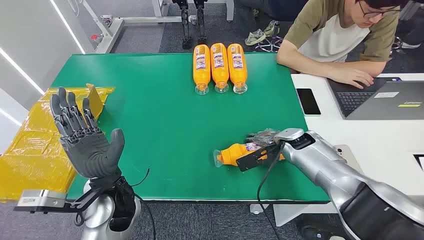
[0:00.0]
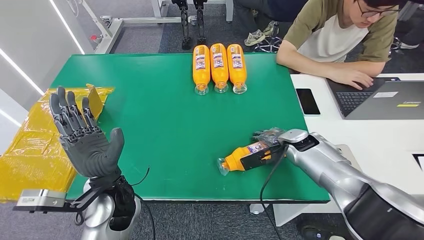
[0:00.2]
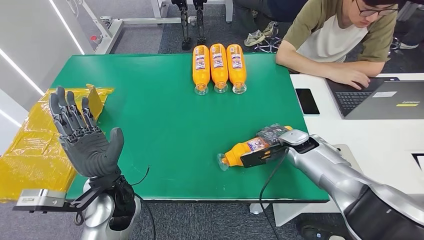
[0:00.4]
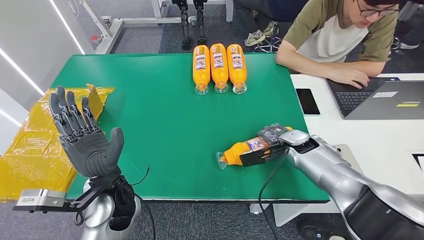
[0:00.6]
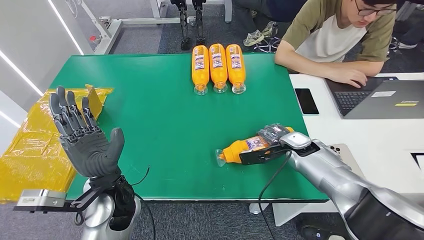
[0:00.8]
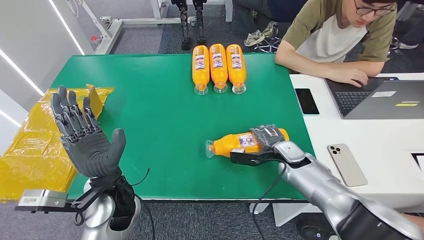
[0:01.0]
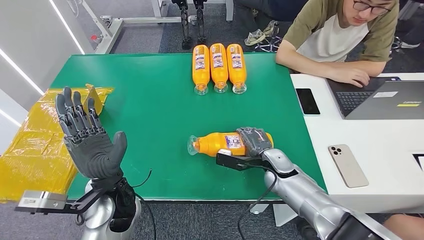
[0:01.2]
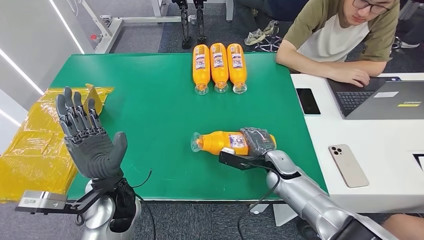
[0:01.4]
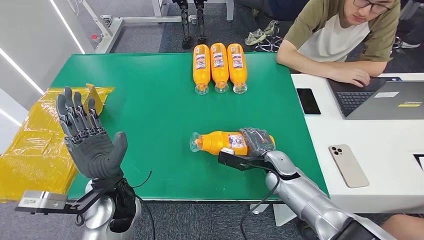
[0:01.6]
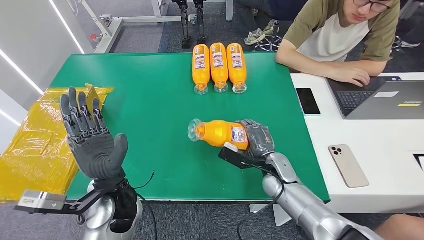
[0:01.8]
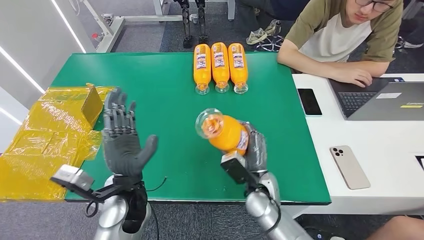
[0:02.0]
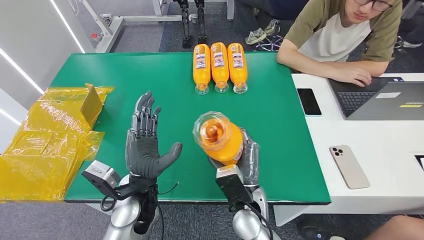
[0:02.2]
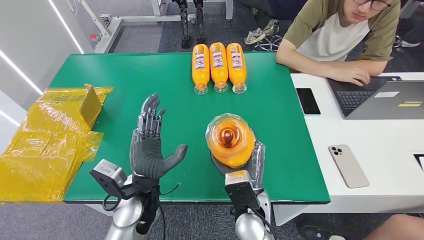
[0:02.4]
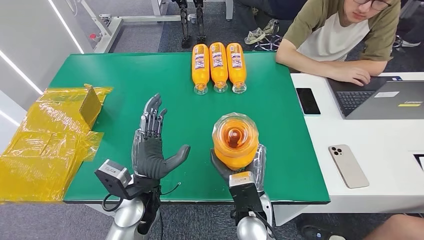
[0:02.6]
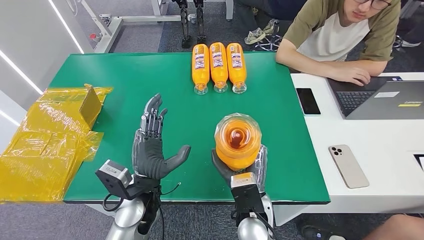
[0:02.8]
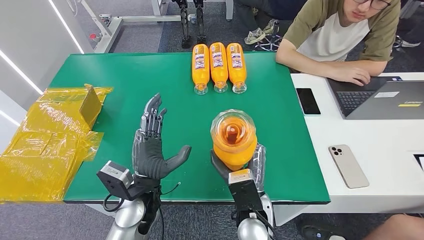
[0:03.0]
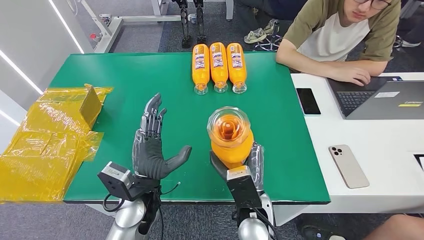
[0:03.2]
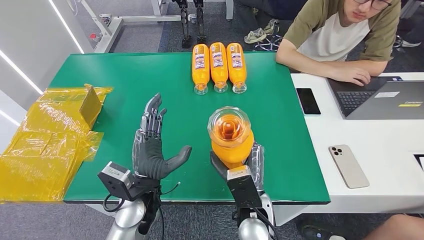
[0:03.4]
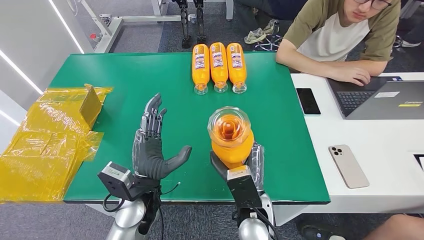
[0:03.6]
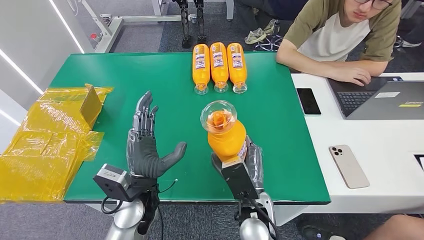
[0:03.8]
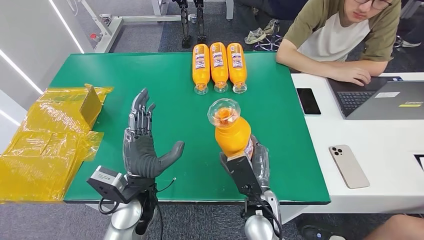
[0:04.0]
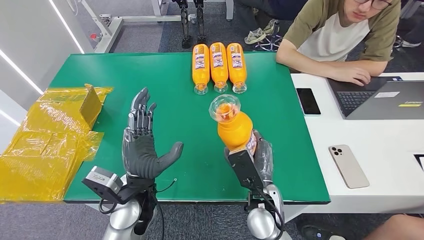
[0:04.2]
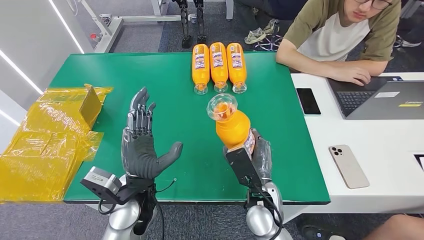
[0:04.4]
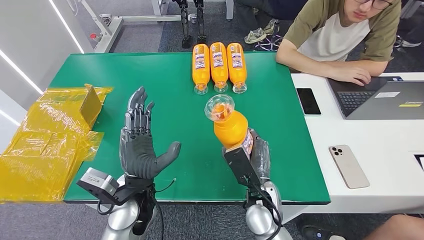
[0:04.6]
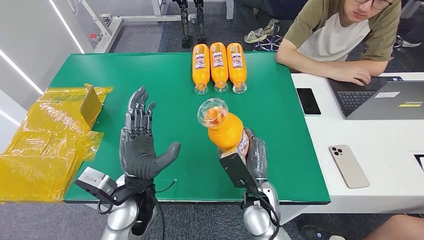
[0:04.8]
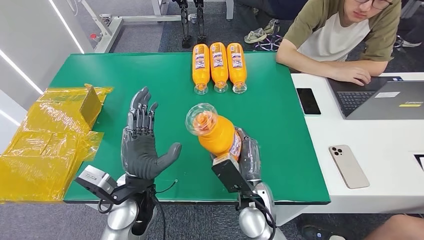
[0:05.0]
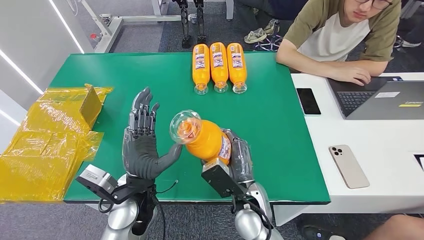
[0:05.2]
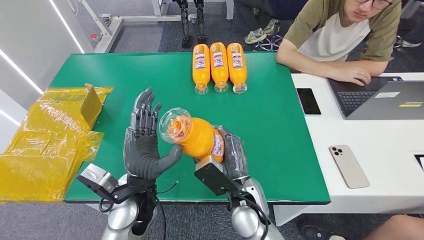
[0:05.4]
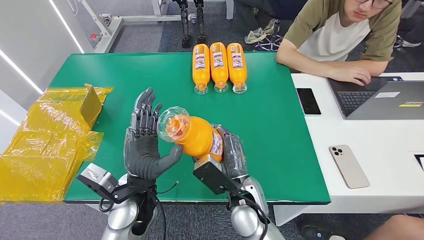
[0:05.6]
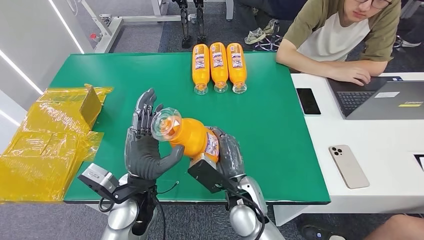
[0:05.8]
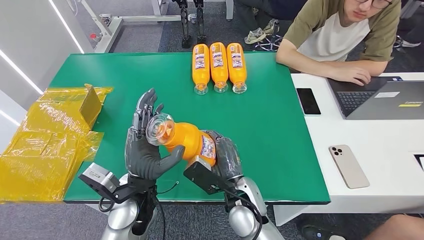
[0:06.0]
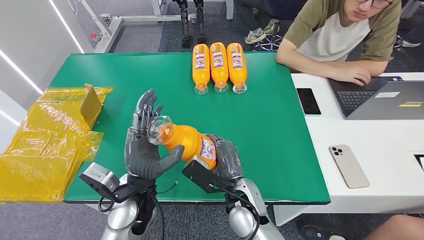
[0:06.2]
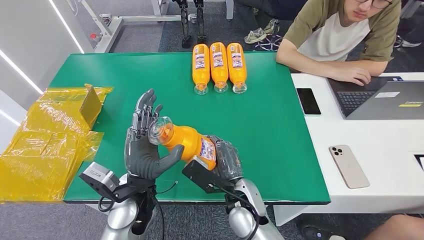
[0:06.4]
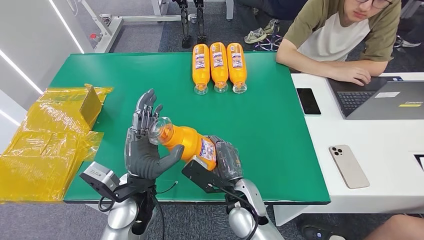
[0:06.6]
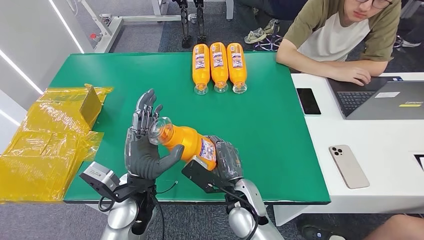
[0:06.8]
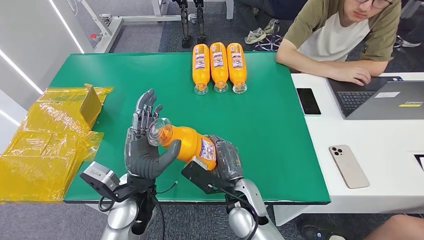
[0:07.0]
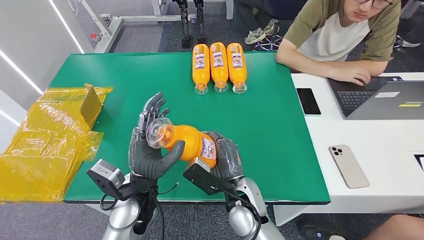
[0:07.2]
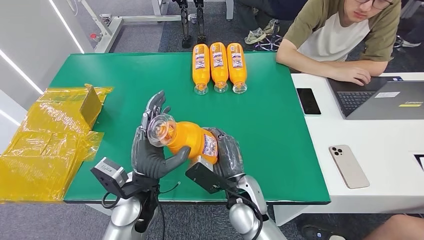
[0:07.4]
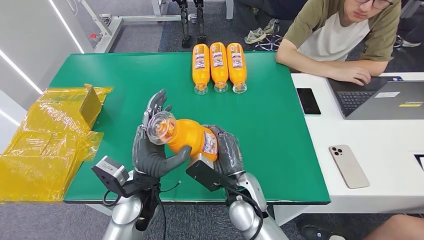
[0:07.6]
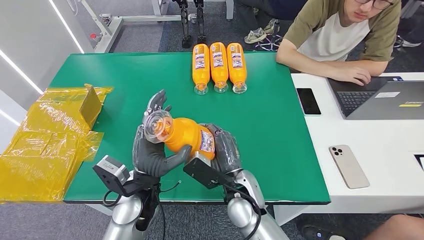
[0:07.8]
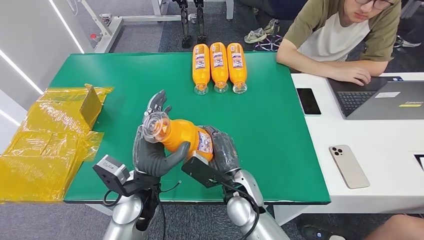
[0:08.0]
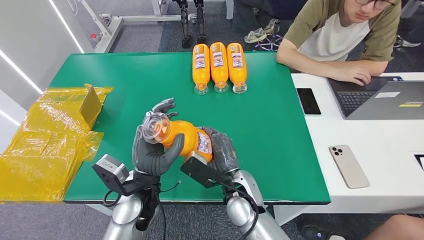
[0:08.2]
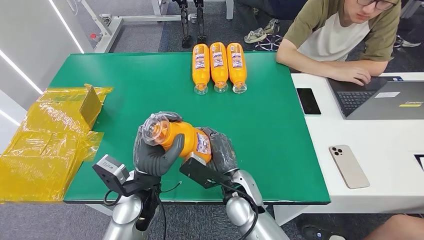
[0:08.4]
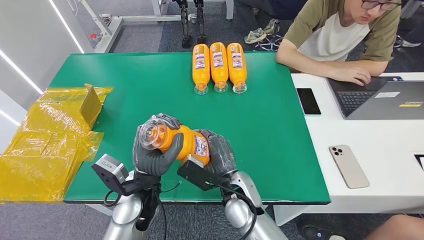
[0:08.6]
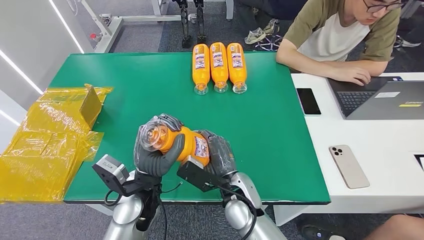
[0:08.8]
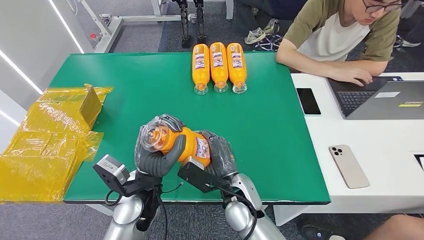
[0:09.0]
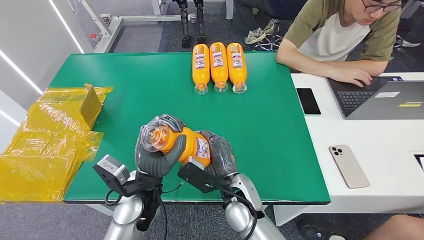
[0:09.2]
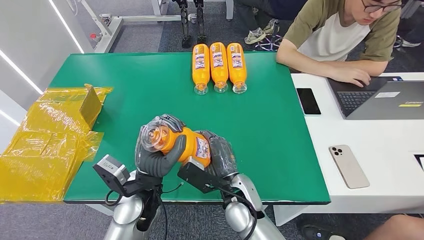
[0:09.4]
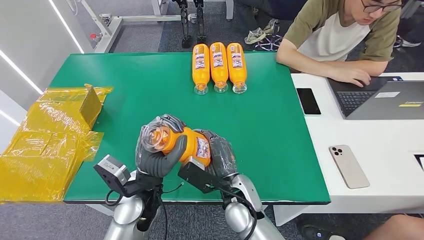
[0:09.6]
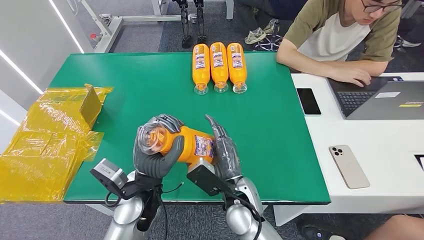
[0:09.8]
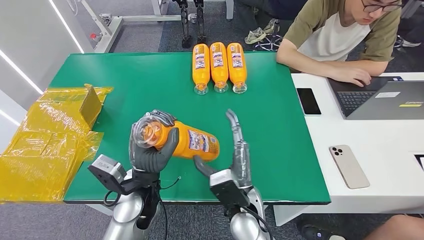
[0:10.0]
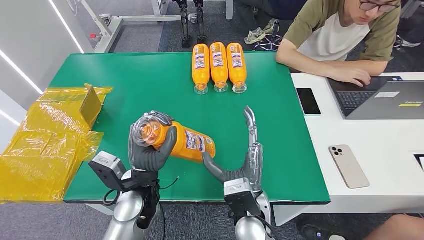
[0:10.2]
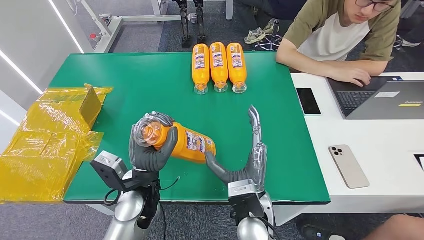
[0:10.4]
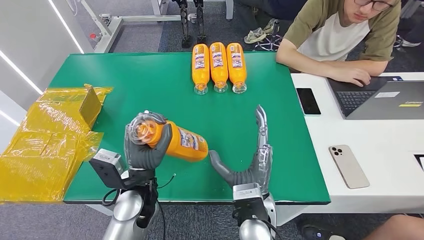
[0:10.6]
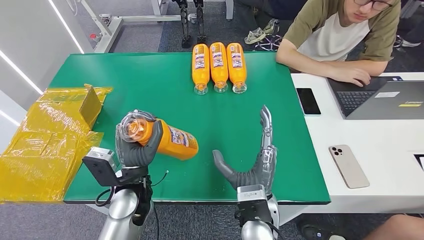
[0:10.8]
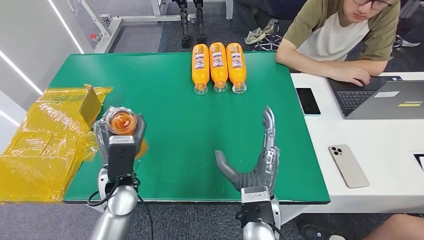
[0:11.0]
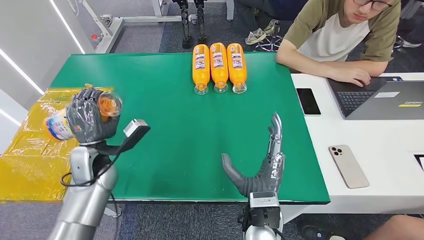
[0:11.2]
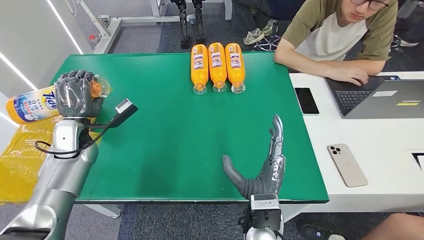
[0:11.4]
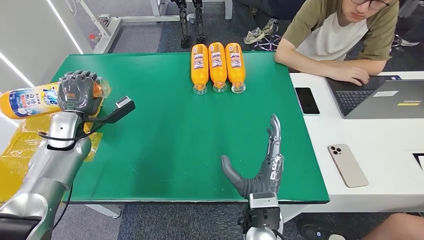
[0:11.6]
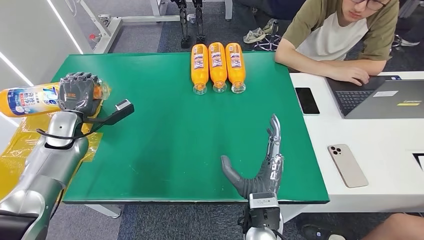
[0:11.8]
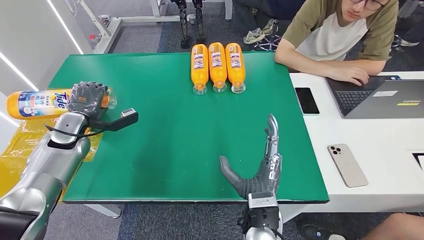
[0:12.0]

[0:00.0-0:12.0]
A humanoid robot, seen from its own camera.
Step, 0.0 to 4.2 s: Pick up the bottle from the table.
6.0 to 9.0 s: The hands move only a little.
9.0 to 10.4 s: The right hand changes place by roughly 5 cm.

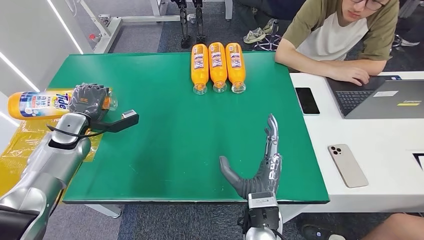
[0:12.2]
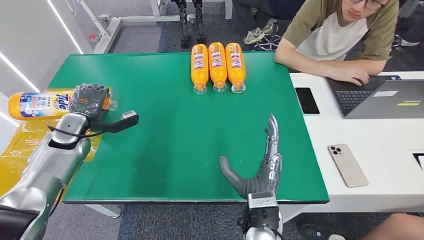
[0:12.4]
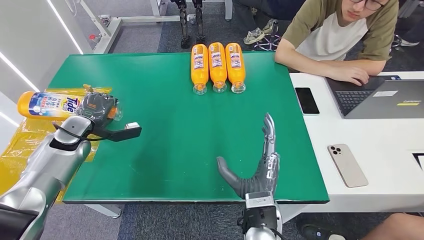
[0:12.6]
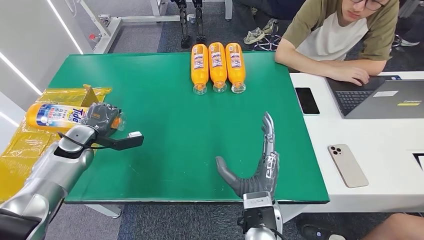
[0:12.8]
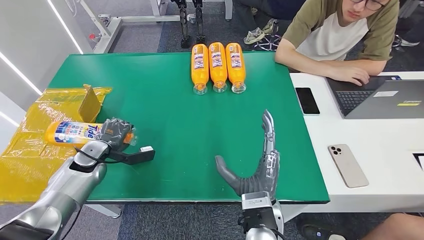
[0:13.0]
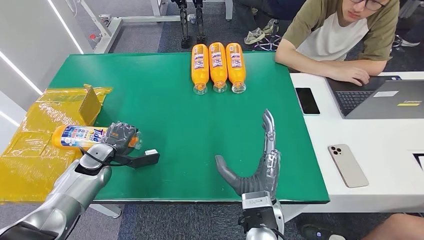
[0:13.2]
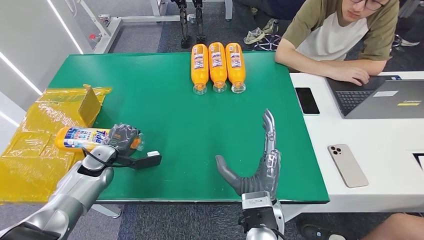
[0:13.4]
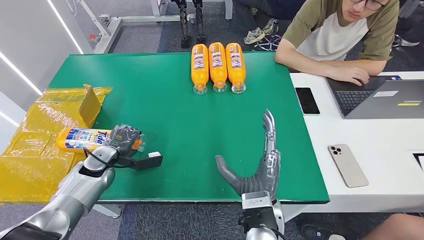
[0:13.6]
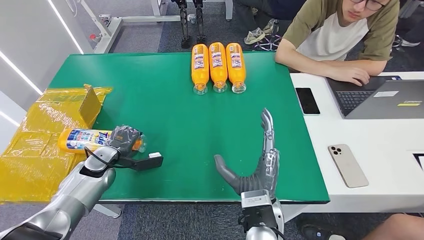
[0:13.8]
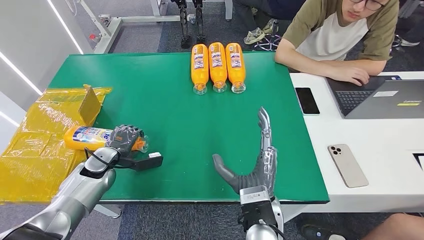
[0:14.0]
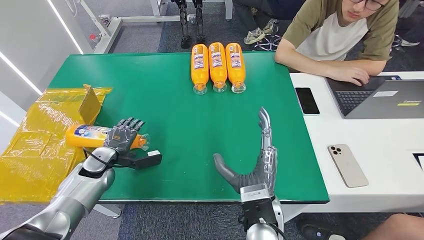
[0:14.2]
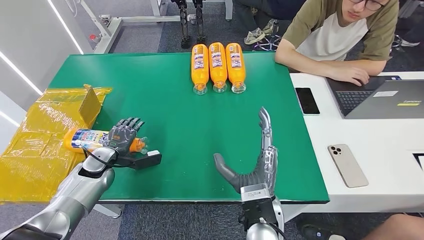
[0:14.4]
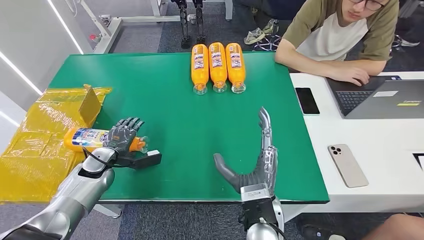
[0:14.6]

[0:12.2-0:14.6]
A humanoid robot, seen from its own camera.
Step, 12.2 to 14.4 s: Turn the bottle to the front side.
12.2 to 13.4 s: The left hand travels downward and backward by about 10 cm.
13.4 to 14.6 s: Both hands stay about where they are.

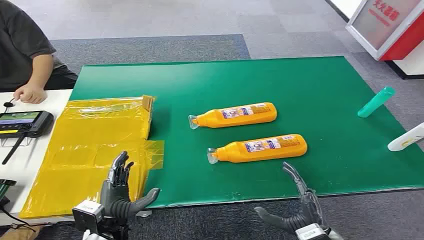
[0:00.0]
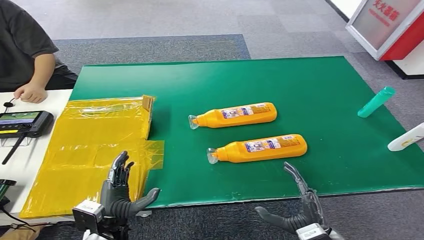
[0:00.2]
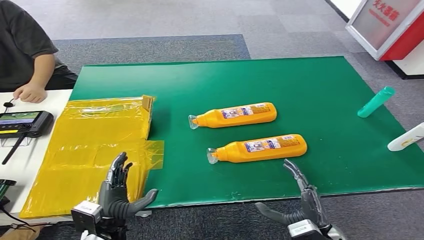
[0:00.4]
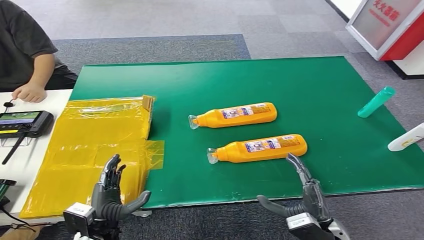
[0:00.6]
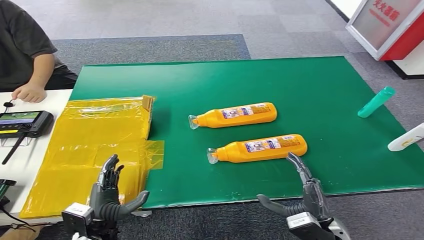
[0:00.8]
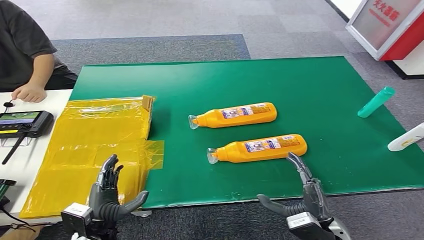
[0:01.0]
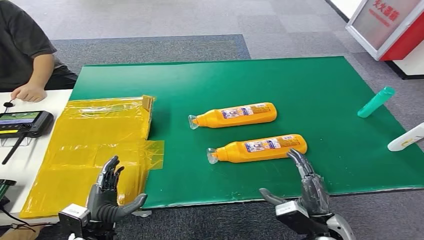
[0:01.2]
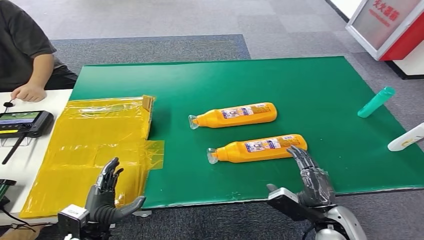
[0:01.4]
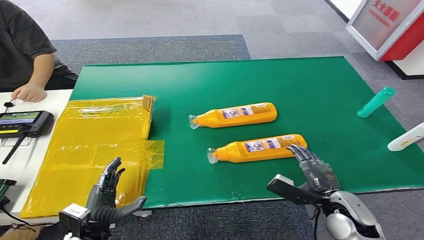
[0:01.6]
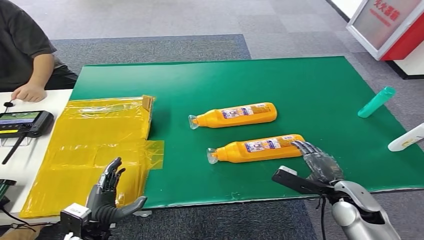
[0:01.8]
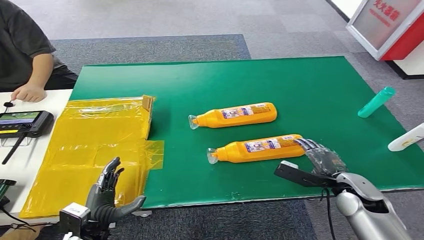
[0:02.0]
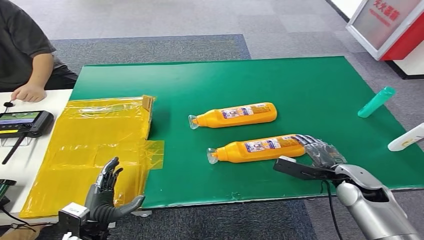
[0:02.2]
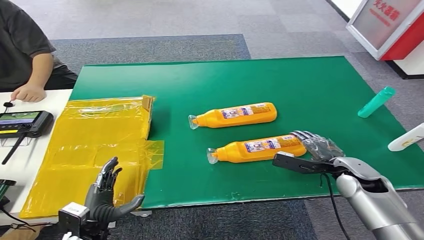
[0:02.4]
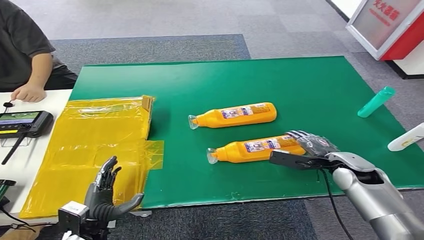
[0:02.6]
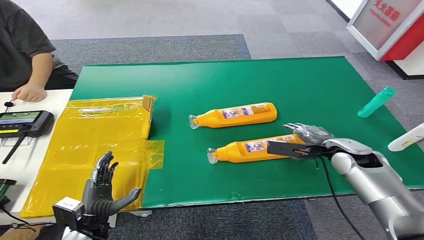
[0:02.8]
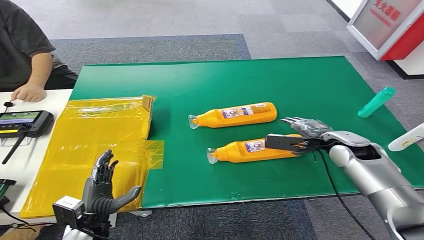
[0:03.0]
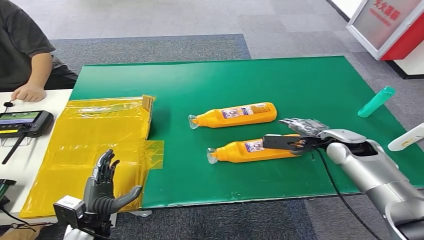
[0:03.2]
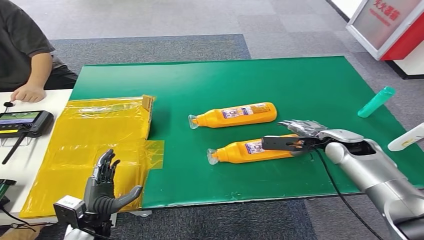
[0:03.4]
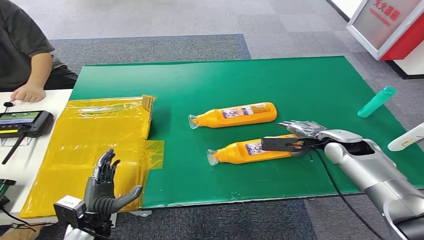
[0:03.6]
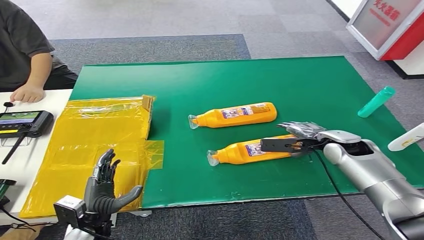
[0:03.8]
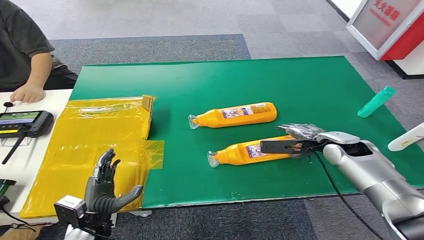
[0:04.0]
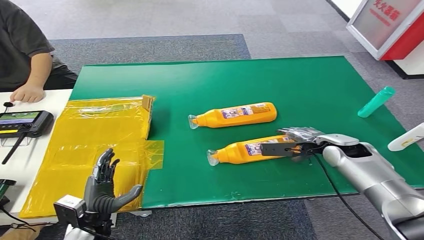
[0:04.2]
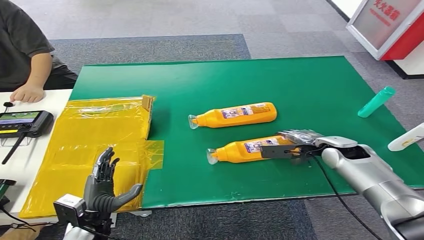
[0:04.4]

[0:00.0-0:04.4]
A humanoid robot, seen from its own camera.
1.4 to 3.0 s: The right hand is displaced forward by roughly 20 cm.
3.0 to 4.4 s: There are only small adjustments of the hands.
